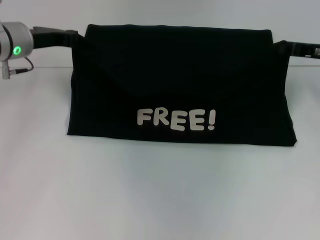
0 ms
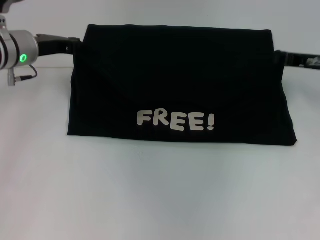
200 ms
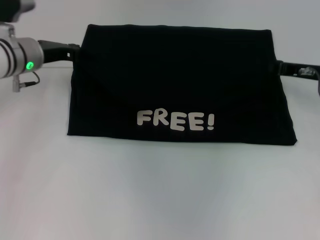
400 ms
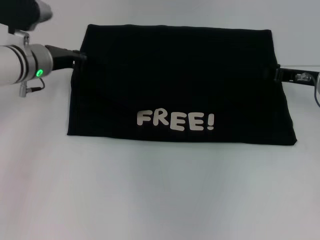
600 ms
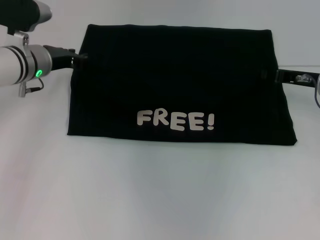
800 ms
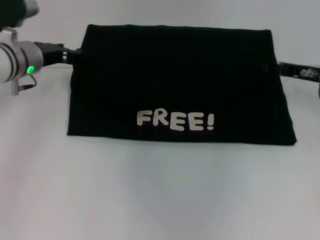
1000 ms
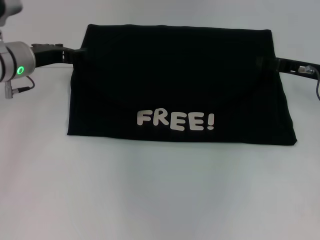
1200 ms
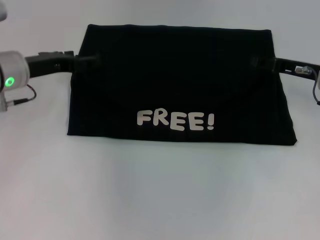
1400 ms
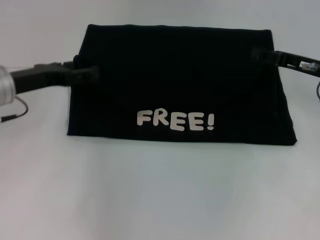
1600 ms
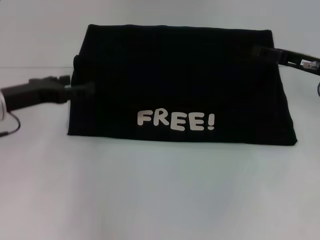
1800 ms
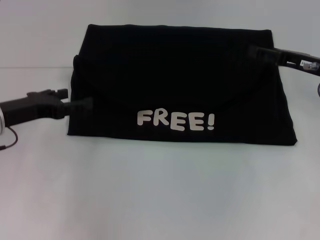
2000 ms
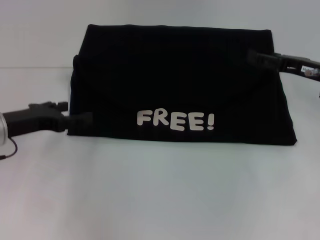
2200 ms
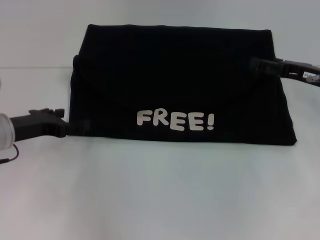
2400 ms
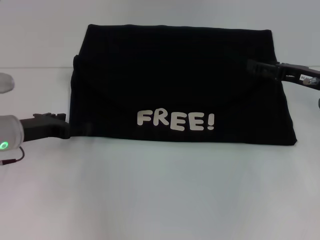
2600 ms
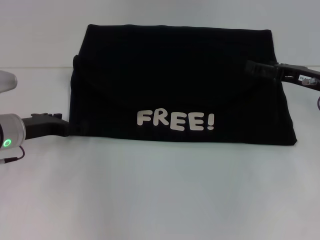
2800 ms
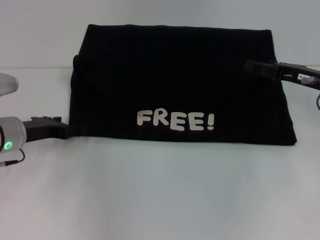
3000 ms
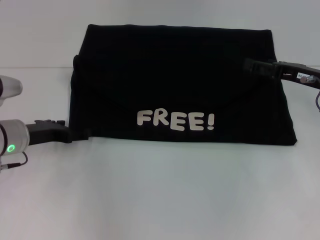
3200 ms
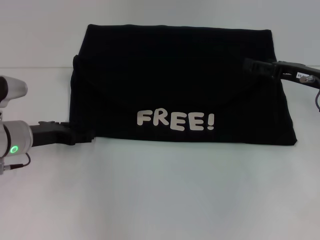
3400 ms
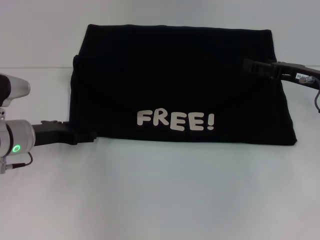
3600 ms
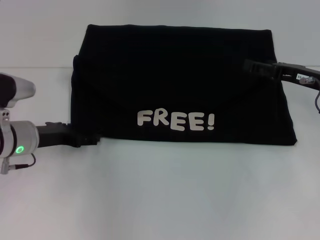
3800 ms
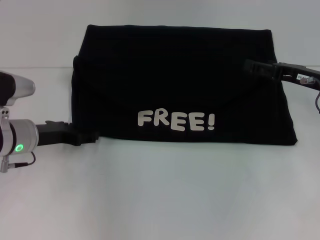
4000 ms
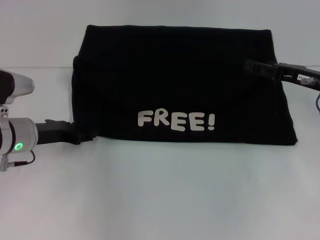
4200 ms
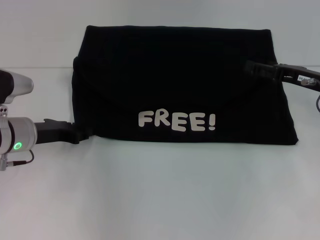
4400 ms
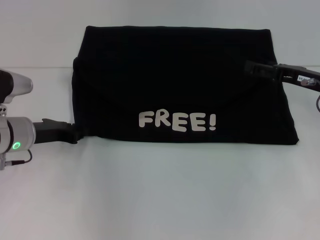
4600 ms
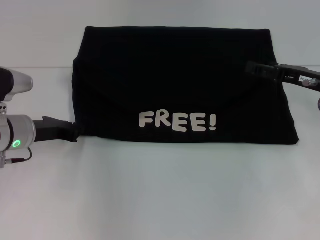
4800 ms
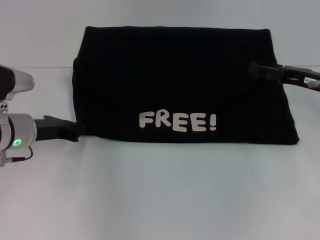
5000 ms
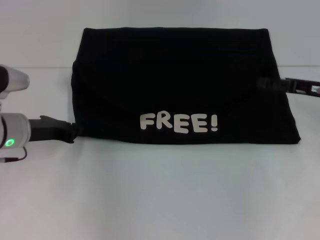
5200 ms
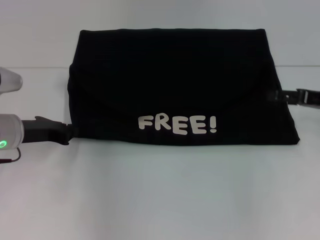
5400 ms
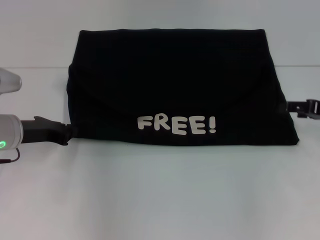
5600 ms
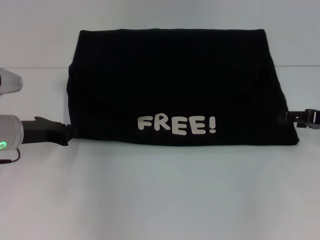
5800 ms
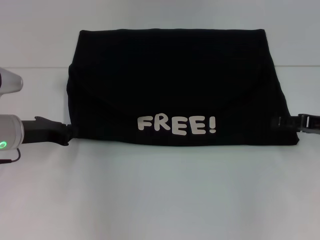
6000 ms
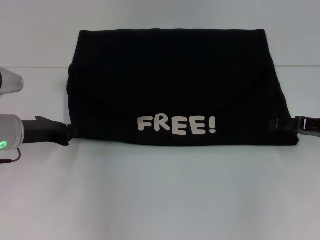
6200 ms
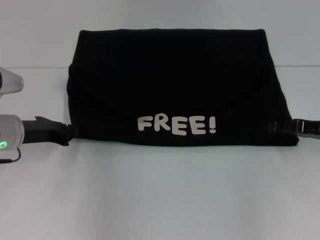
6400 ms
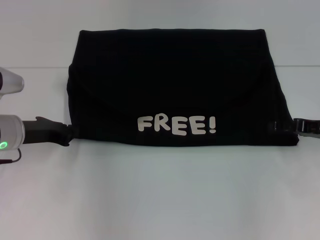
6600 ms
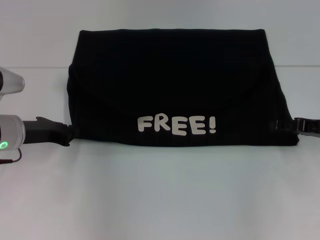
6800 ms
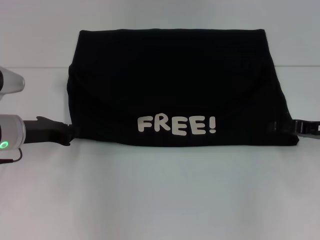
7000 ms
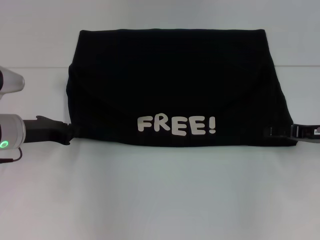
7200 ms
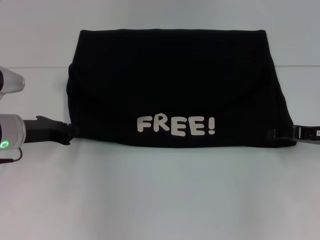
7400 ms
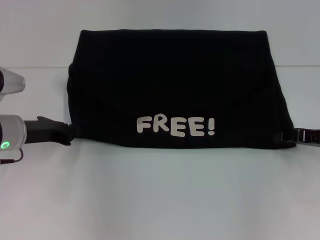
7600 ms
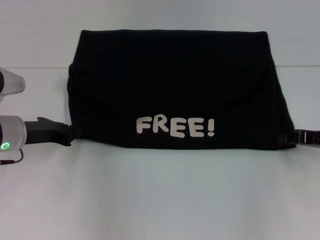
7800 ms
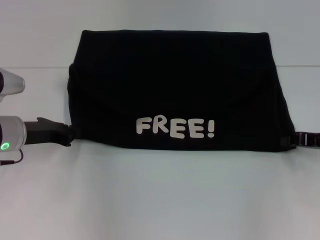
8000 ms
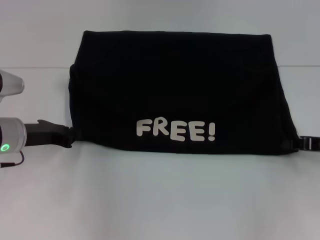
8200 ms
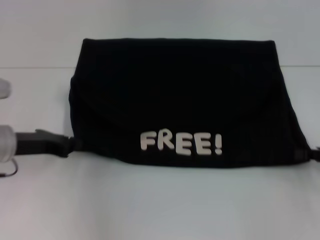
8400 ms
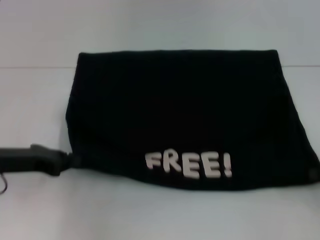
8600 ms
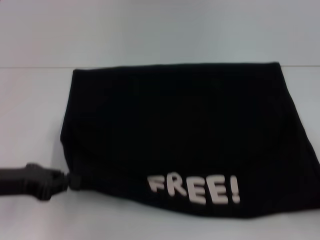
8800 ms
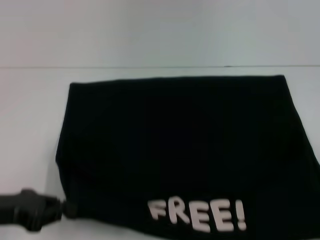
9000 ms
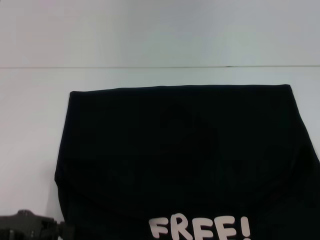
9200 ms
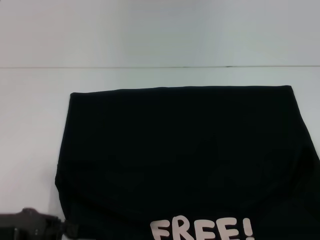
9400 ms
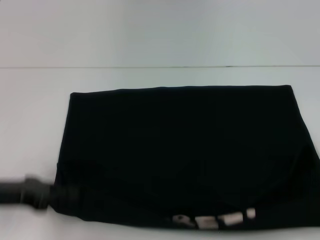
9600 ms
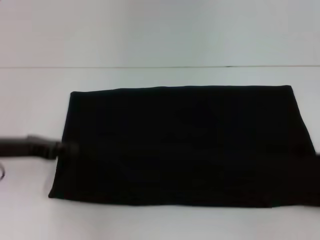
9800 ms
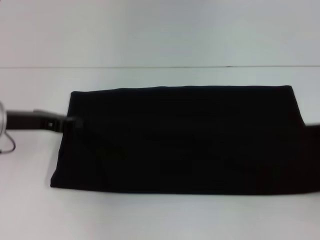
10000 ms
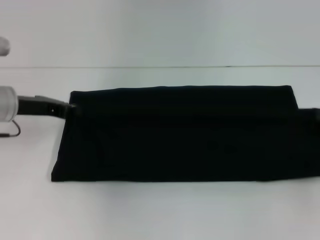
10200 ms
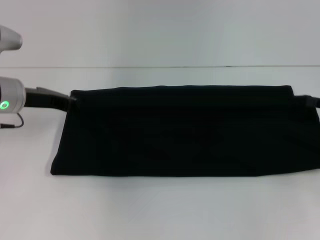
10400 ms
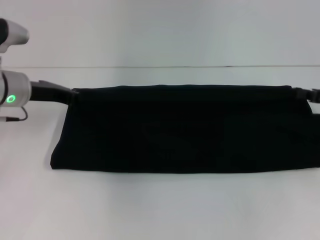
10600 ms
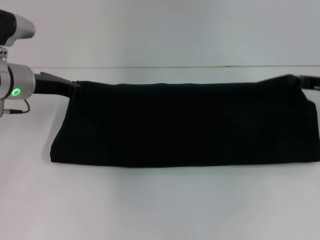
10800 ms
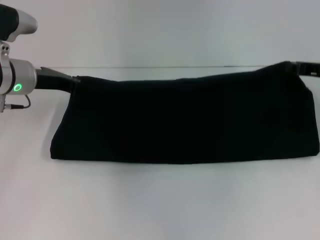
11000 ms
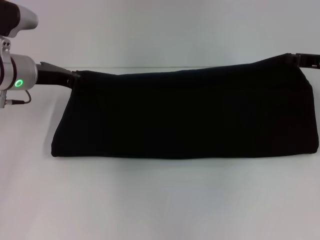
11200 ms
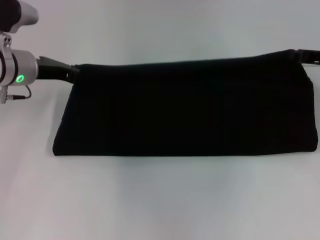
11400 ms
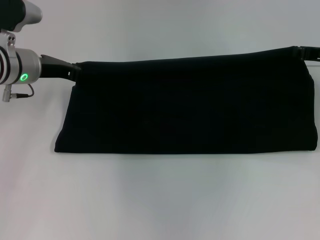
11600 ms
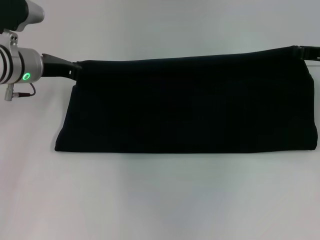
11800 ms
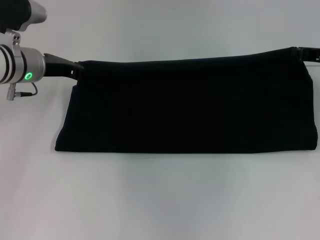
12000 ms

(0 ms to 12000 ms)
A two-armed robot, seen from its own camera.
Step, 1000 ms - 9200 ms: Pull the clothes with your left hand.
Step, 1000 ms - 9200 ms: Pull the clothes with your right hand.
0 ms - 1600 ms: The left gripper heads backward, covering some 10 cm, and opens its fingers, while the right gripper opens.
1600 ms - 3000 ms: The left gripper is displaced downward by some 5 cm.
3000 ms - 4400 ms: The left gripper closes.
4400 ms - 6000 ms: The left gripper closes. Meanwhile the right gripper ends up approximately 5 cm from where it was.
6000 ms - 7600 ms: There are only small adjustments of the grippers.
7600 ms - 9000 ms: The right gripper goes some 15 cm backward and to the right, and closes. The left gripper travels backward by roughly 10 cm.
9000 ms - 10400 ms: Both grippers travel together forward, roughly 15 cm.
10400 ms - 12000 ms: The left gripper shifts by about 5 cm. The right gripper heads forward and to the left, covering about 10 cm.

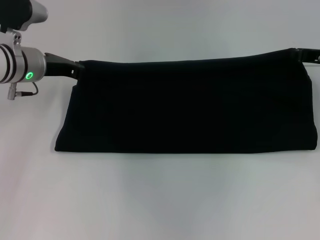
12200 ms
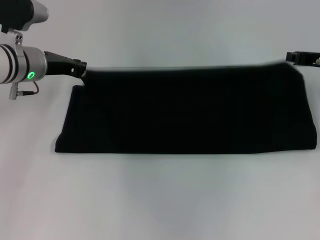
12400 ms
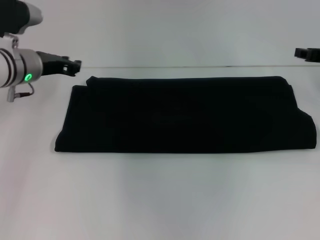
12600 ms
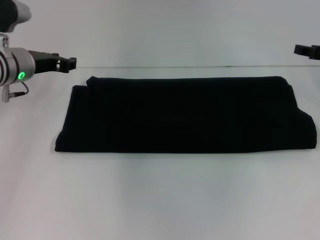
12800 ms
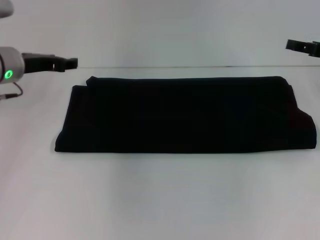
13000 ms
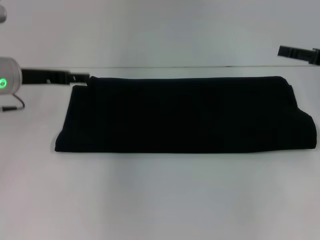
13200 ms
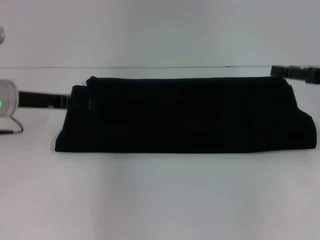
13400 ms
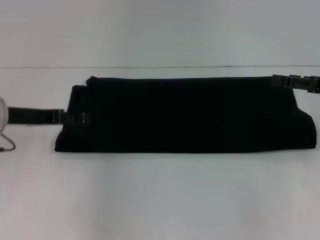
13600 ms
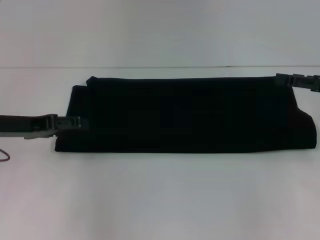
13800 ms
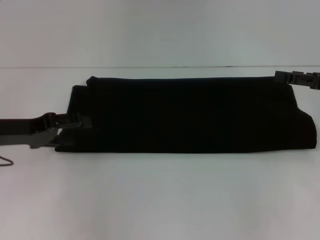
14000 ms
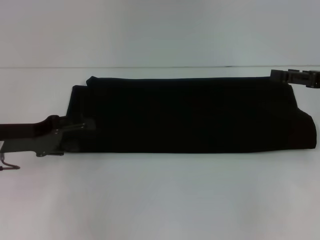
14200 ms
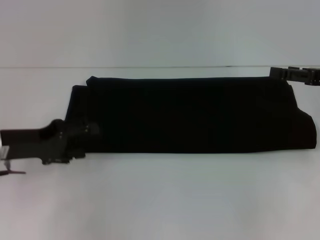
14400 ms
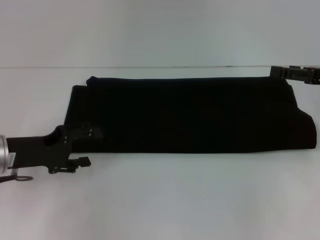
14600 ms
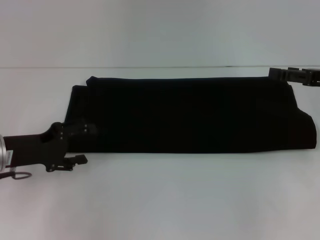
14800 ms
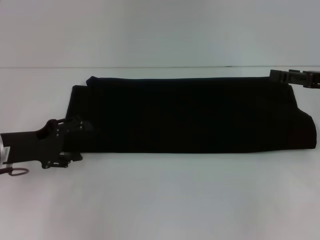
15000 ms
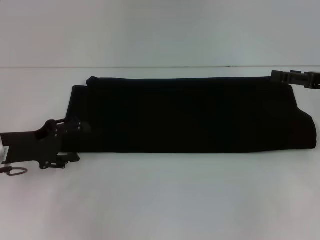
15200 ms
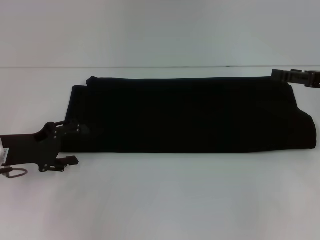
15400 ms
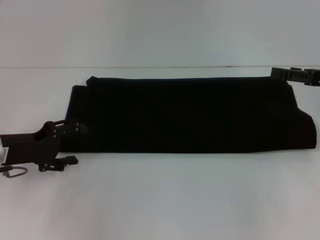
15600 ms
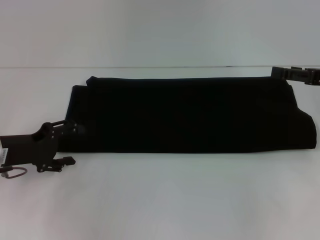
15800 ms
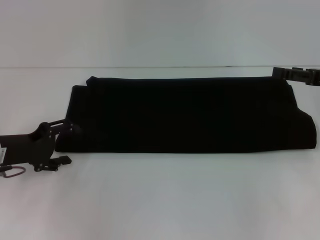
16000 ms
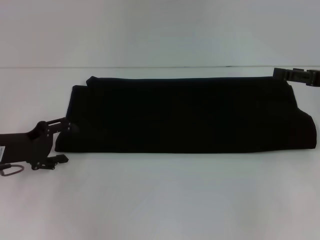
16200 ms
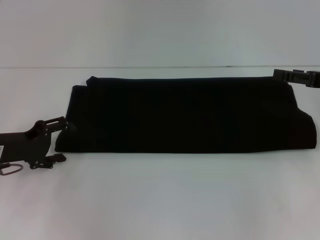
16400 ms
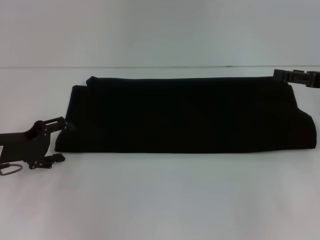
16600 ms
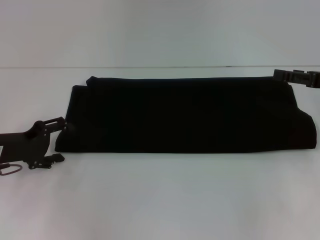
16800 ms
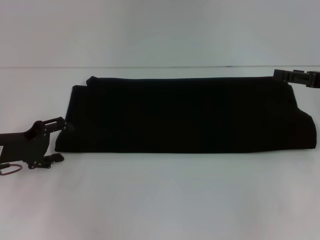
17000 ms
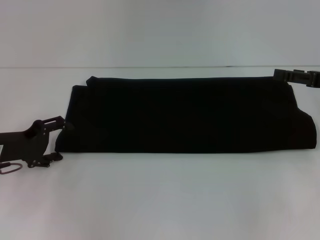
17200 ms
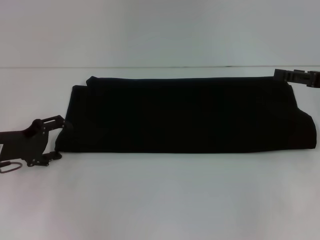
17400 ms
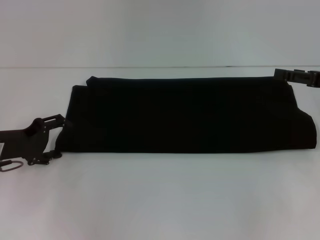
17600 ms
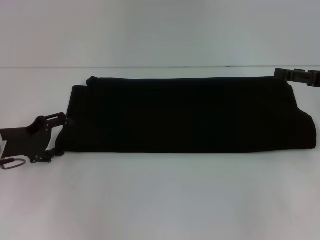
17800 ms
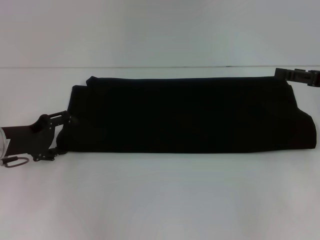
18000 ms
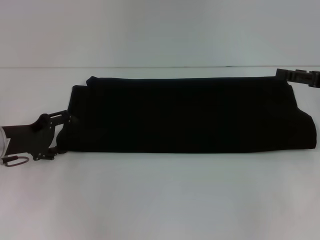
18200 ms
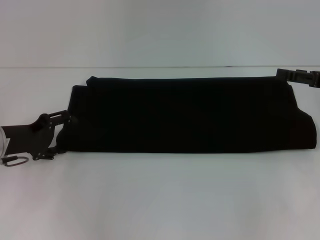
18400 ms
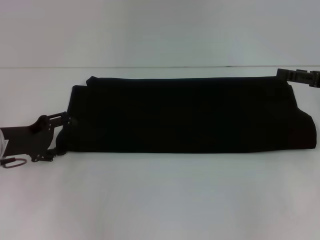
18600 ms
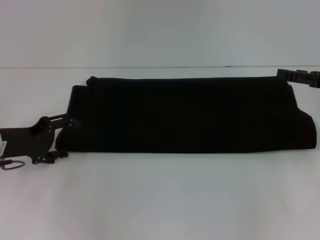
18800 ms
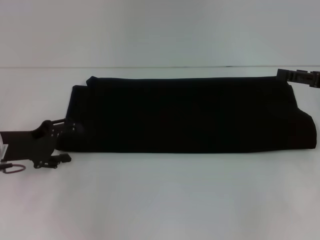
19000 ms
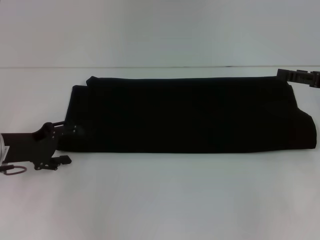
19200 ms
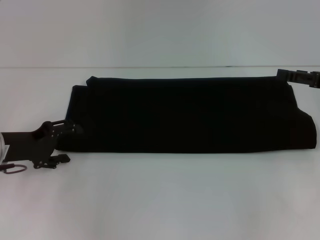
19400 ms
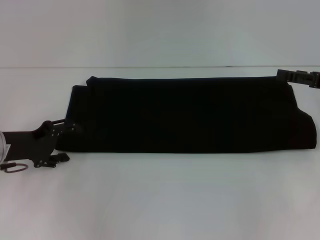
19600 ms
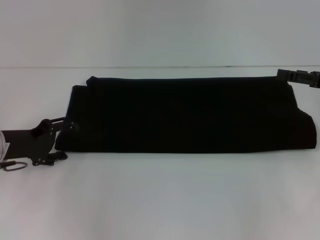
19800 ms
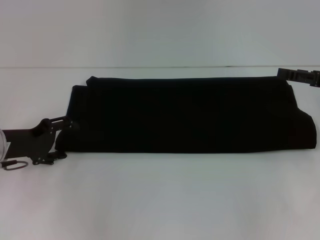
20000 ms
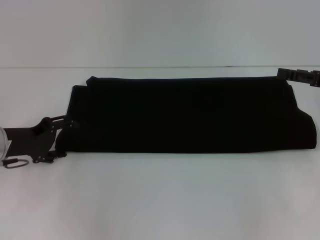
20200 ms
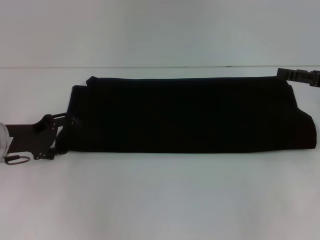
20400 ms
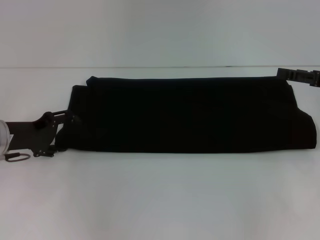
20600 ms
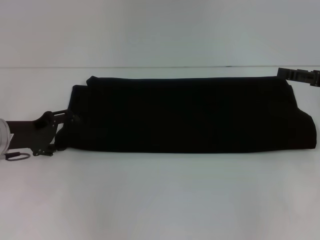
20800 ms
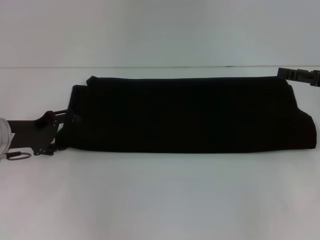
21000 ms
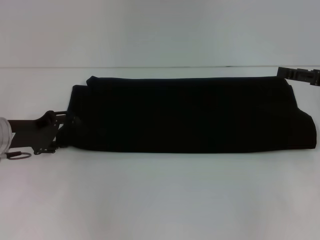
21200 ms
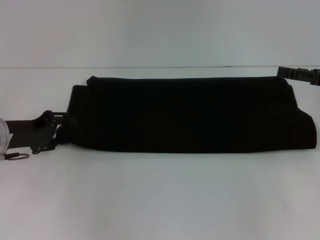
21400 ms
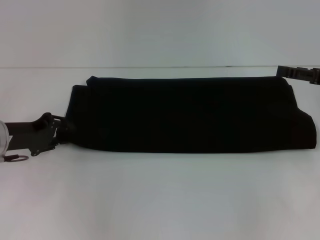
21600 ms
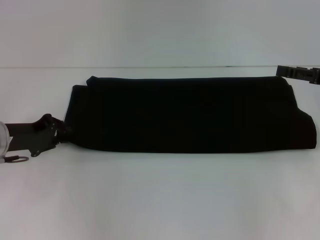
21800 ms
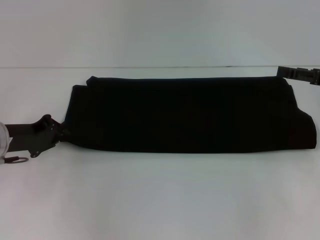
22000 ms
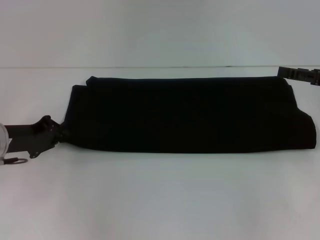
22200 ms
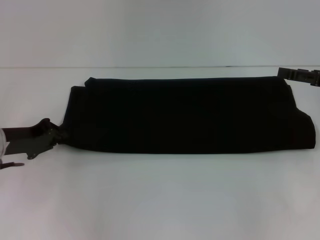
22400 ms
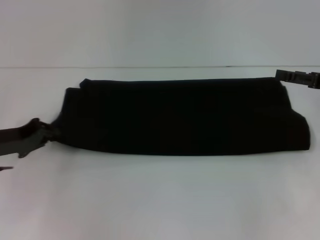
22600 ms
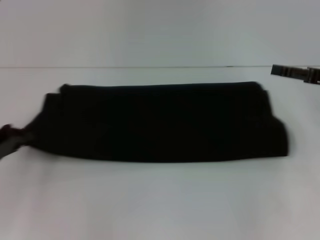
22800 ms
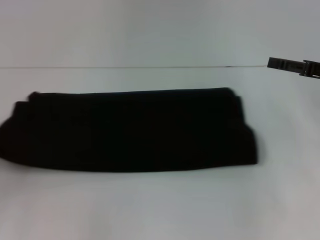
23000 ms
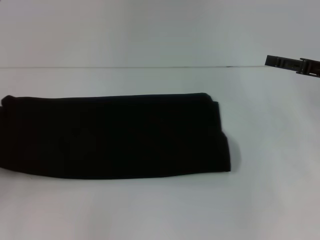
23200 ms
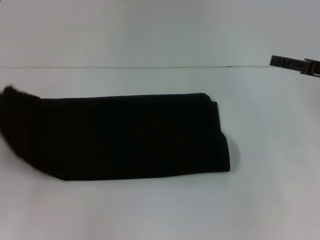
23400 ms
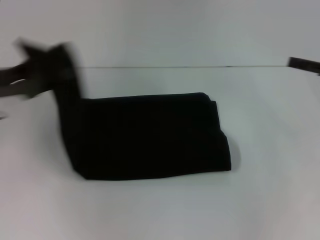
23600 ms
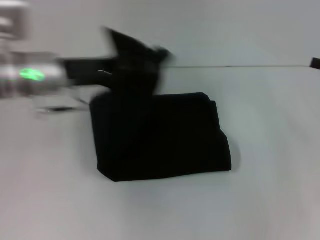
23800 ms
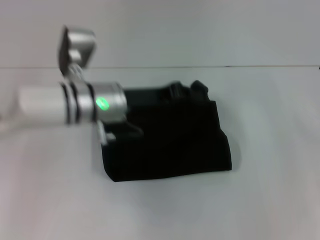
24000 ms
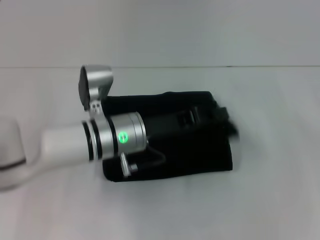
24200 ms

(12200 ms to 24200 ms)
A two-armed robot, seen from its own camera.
12200 ms - 13800 ms: The right gripper shifts approximately 10 cm backward, and opens its fingers, while the left gripper moves backward and to the left, roughly 10 cm, and opens.
15200 ms - 21200 ms: There are only small adjustments of the grippers.
21200 ms - 22600 ms: The left gripper closes.
22600 ms - 24200 ms: The right gripper heads to the right, covering about 5 cm. The left gripper moves to the right, about 25 cm.
